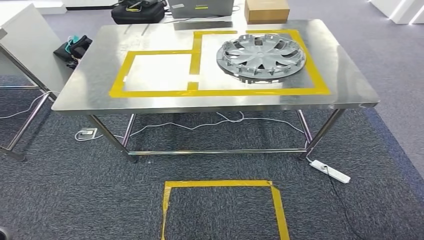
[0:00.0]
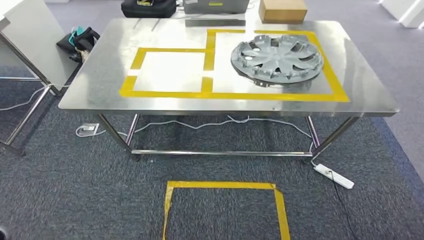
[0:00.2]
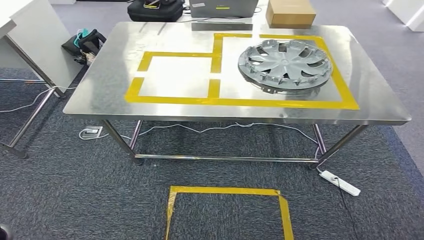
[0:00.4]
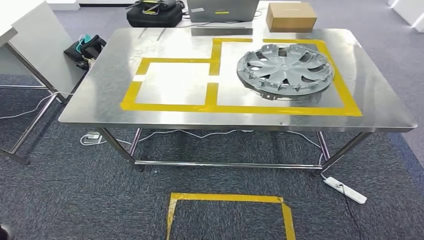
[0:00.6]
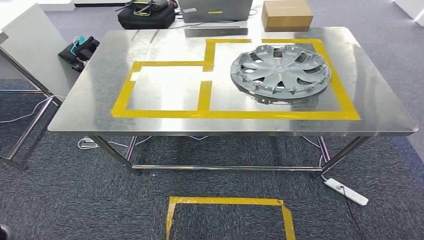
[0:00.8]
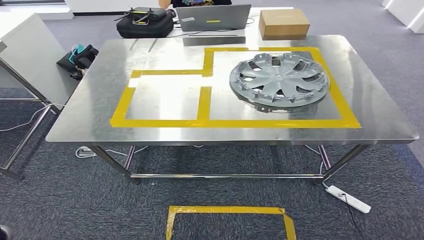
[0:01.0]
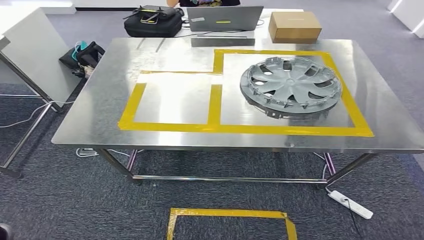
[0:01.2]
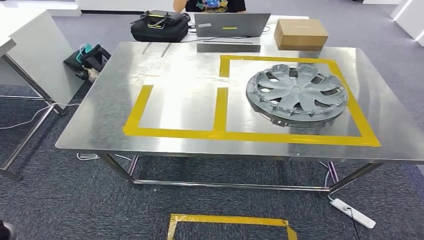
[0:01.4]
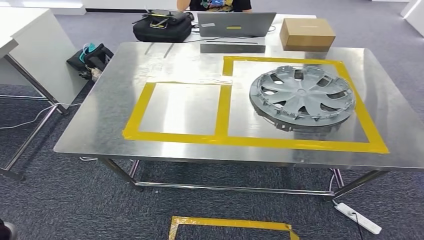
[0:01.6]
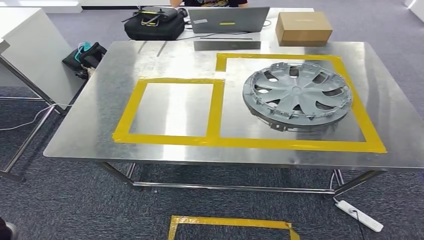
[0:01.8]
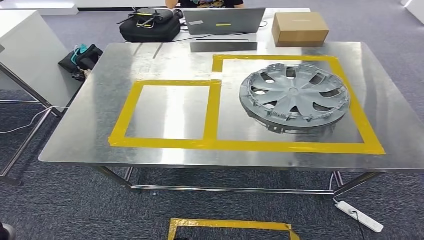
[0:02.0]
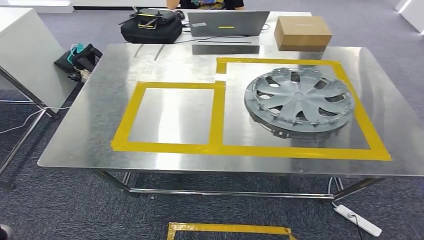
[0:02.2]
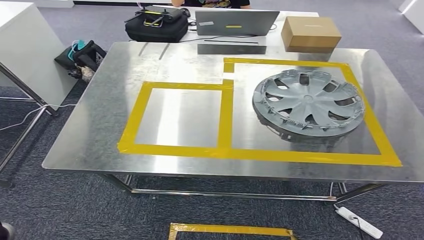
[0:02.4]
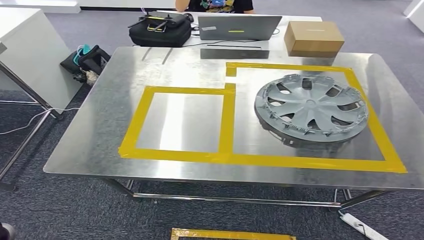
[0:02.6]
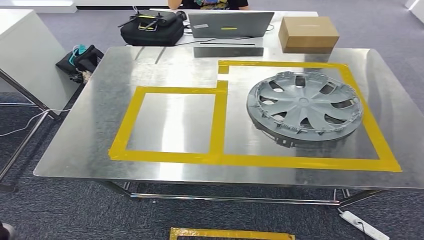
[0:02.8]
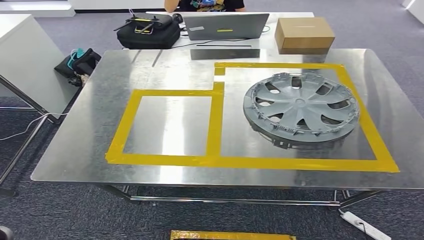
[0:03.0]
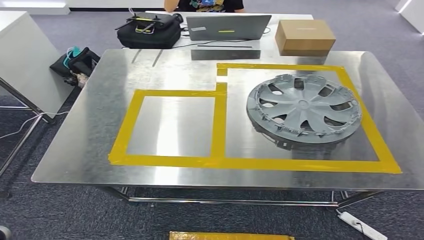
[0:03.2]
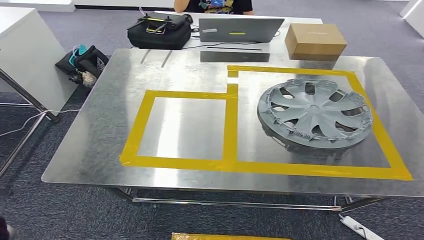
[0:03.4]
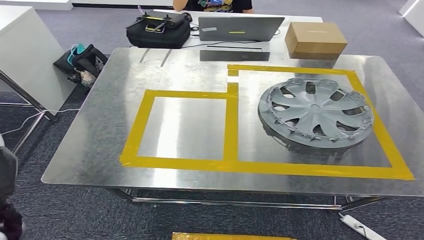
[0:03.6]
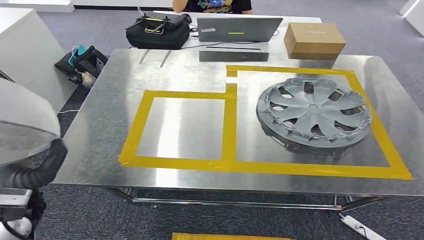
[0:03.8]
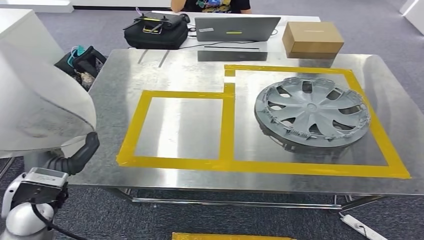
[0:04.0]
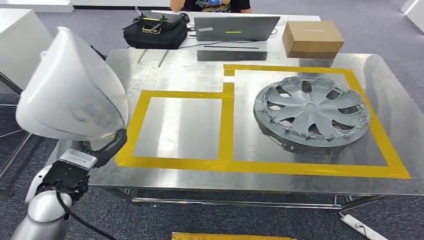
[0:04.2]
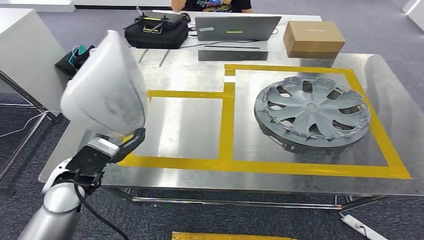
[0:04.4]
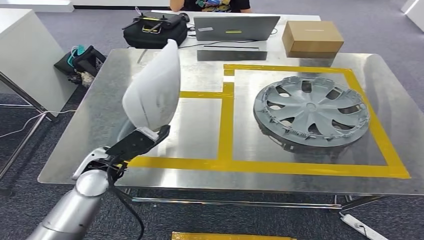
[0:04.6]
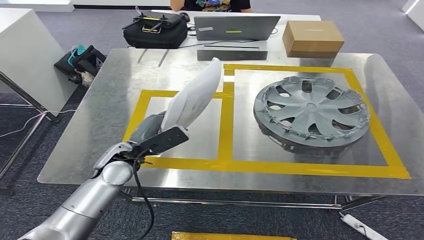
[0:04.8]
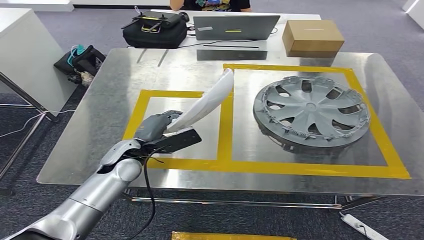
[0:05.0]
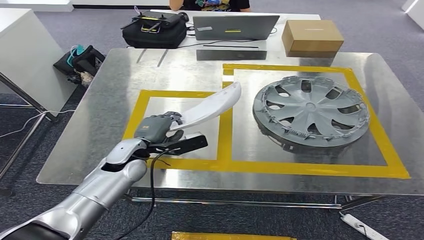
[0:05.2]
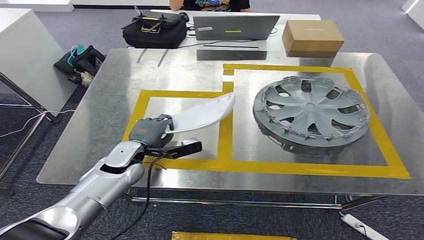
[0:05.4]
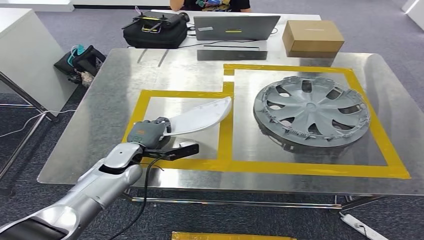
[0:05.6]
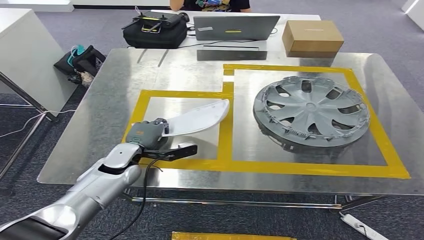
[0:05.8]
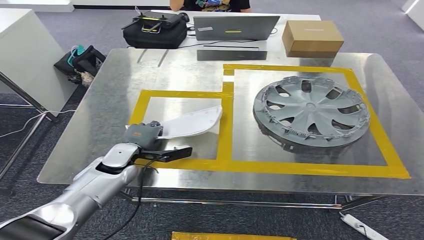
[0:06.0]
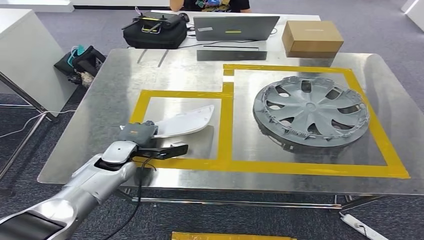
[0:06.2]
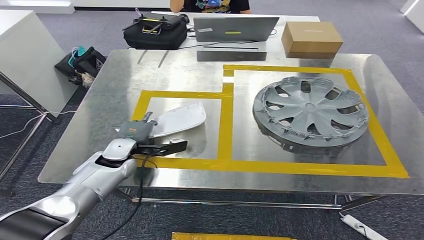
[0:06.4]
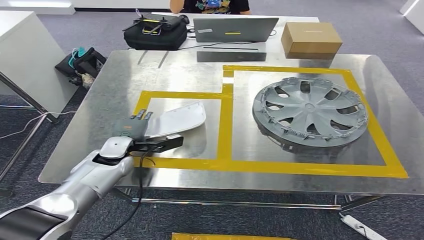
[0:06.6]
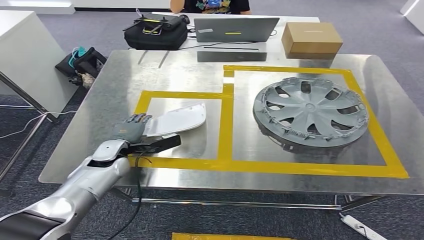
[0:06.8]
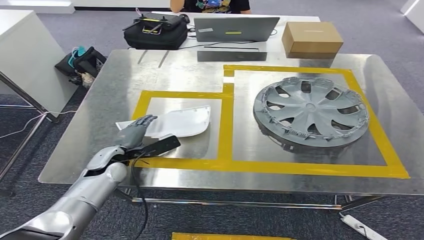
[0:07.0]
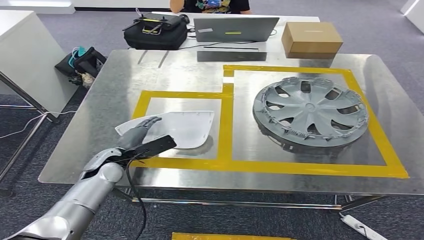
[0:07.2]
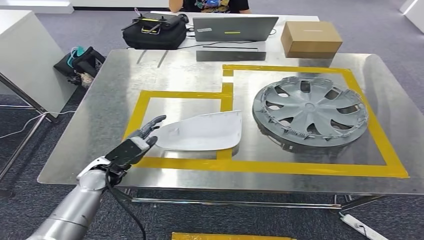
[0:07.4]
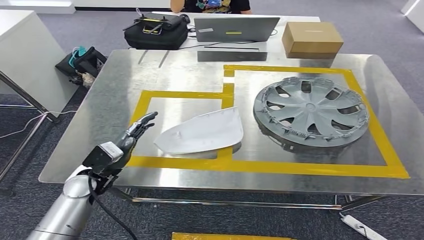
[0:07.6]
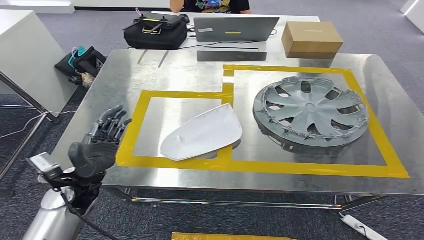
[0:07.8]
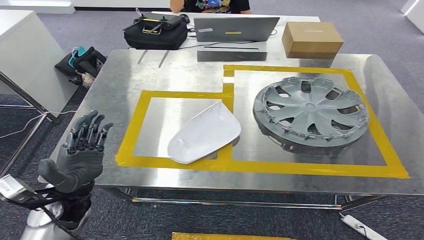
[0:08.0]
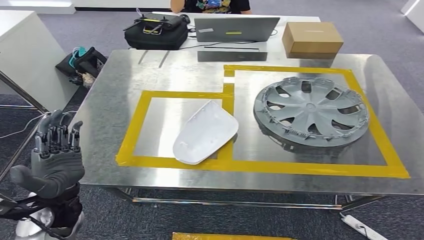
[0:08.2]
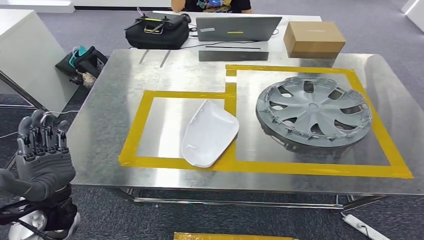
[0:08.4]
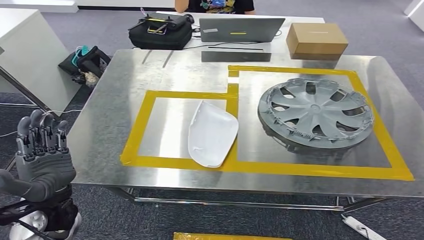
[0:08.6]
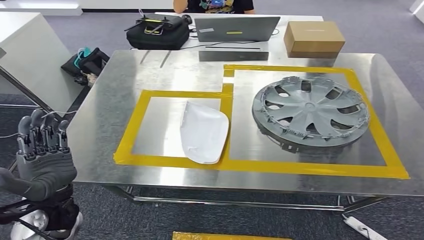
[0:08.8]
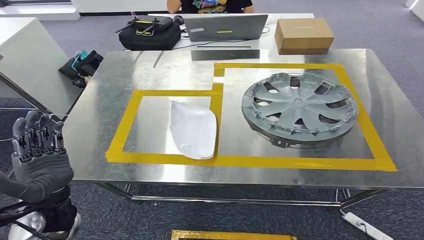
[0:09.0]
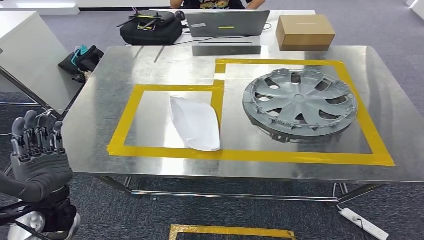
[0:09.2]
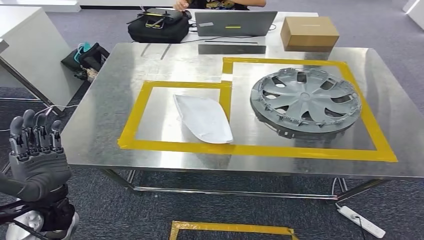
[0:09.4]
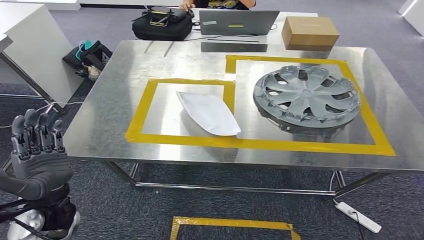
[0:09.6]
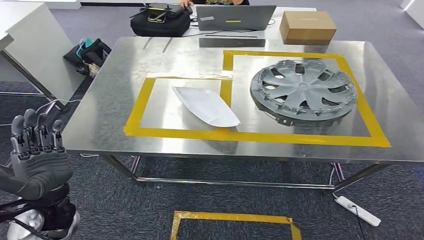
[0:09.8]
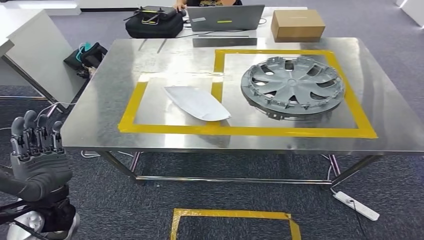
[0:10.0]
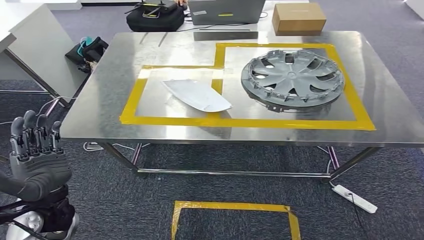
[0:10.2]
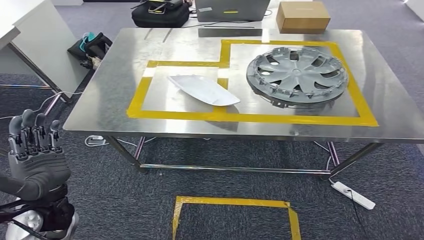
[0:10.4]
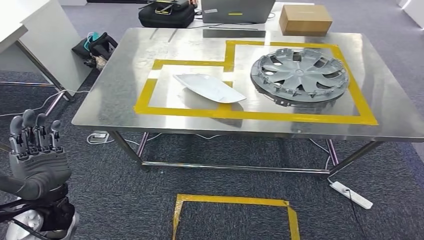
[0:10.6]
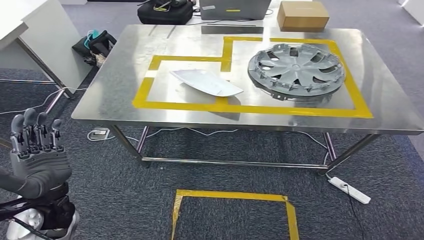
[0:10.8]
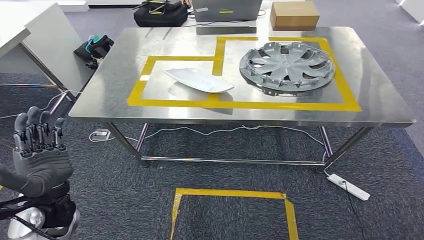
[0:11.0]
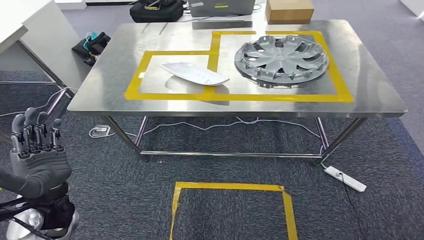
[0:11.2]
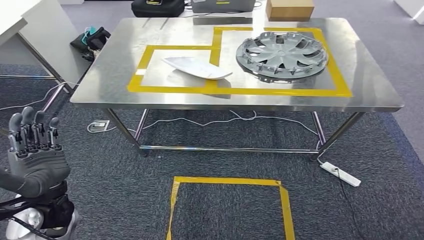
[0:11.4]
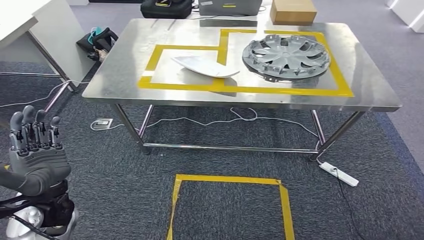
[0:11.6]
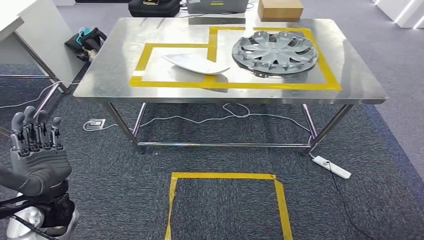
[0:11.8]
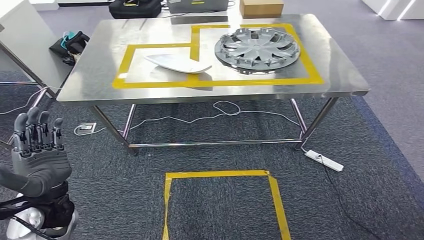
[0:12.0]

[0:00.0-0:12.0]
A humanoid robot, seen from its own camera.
Step, 0:00.0 to 0:07.8: Insert the small parts into the corresponding holes on the workbench.
0:04.4 to 0:06.0: The left hand shifts approximately 15 cm downward and forward.
0:06.0 to 0:07.6: The left hand travels backward by some 5 cm.

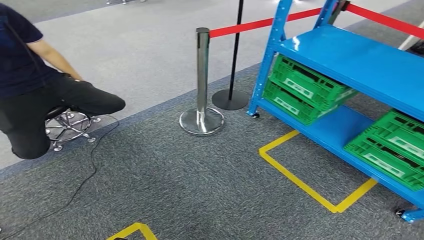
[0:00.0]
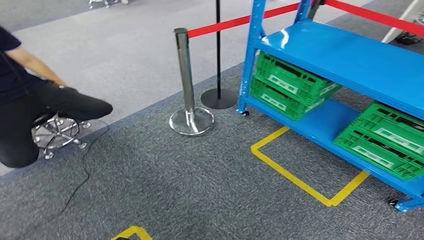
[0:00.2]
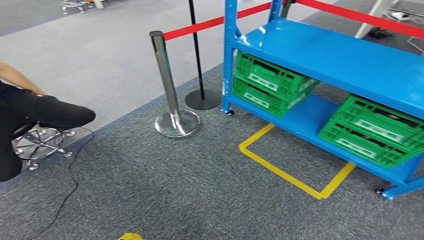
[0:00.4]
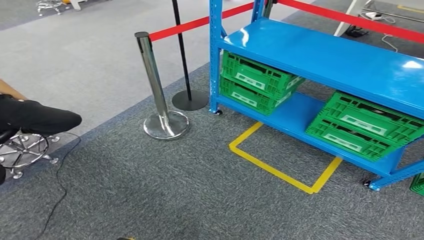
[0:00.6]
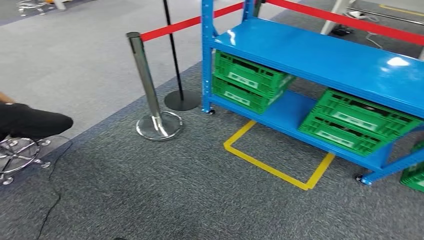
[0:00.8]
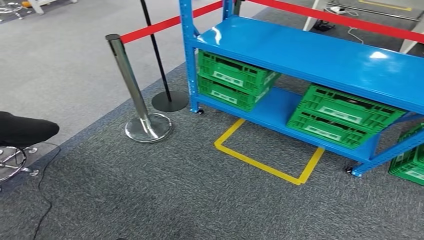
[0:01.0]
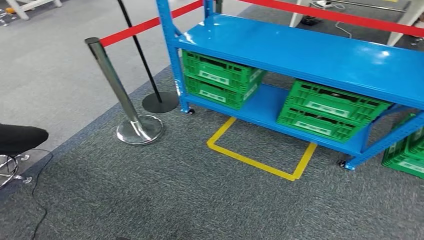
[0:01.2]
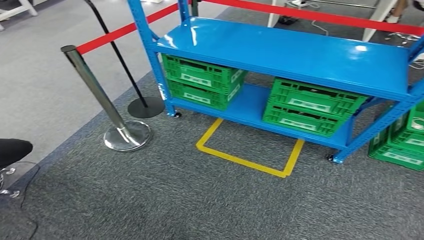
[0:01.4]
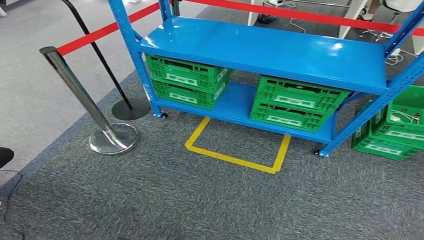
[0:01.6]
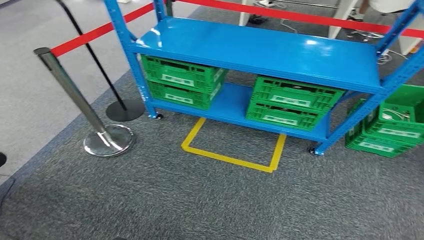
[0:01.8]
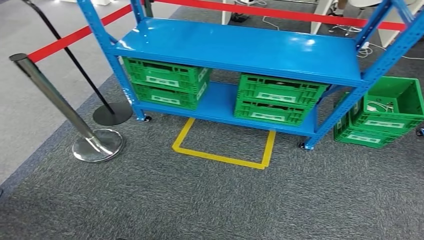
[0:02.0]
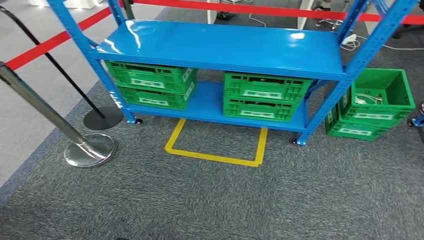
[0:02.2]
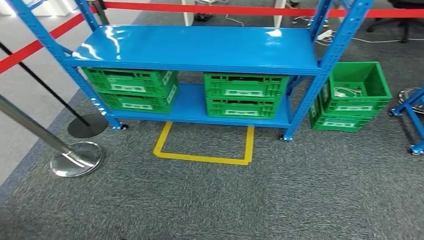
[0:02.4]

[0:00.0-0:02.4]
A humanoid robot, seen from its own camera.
Step, 0:00.0 to 0:02.4: Move to the initial position at the workbench.
